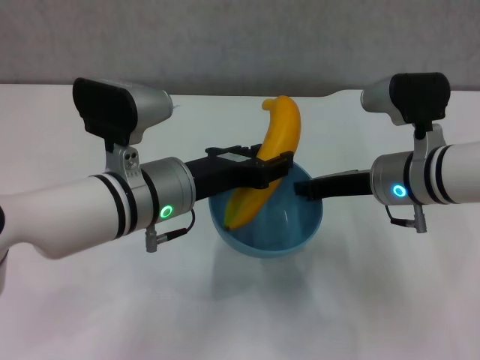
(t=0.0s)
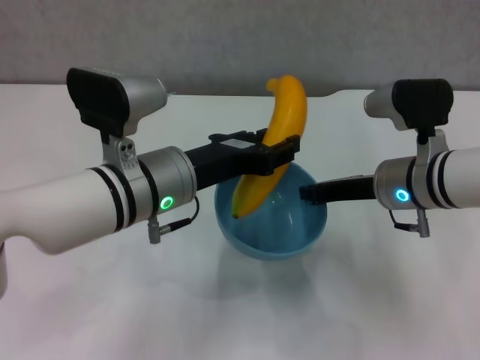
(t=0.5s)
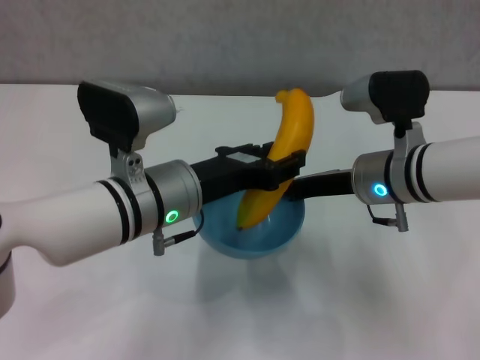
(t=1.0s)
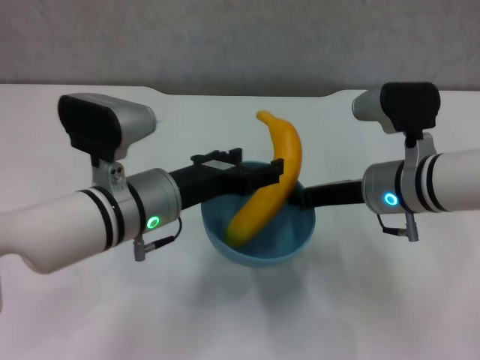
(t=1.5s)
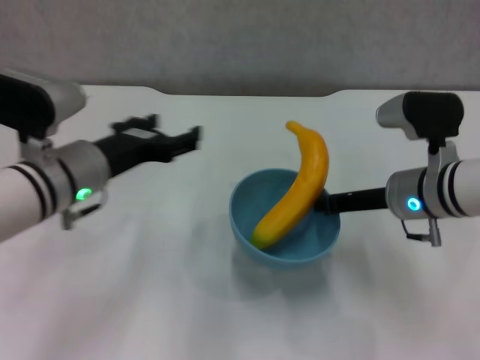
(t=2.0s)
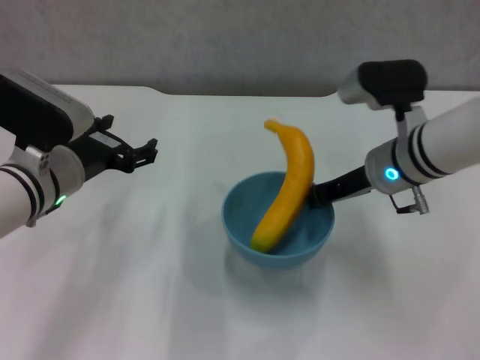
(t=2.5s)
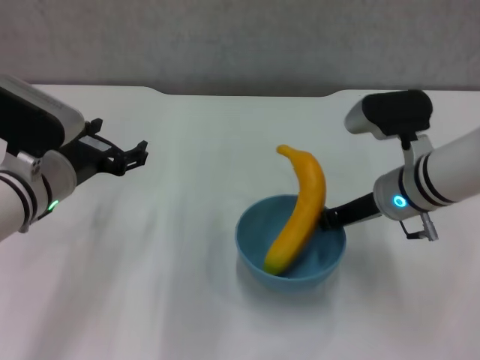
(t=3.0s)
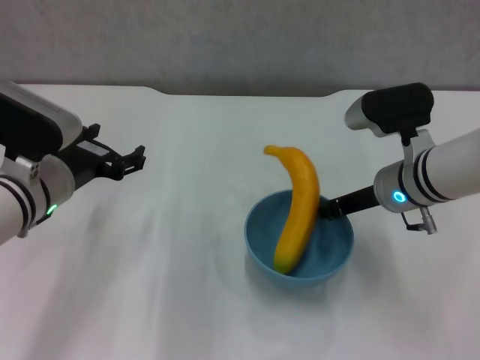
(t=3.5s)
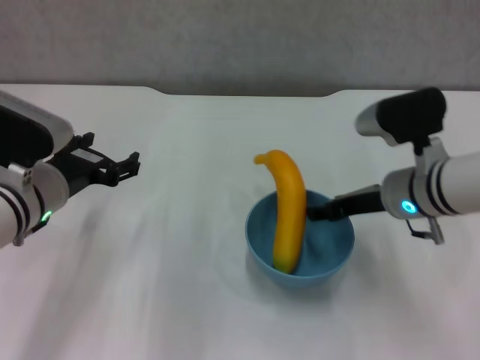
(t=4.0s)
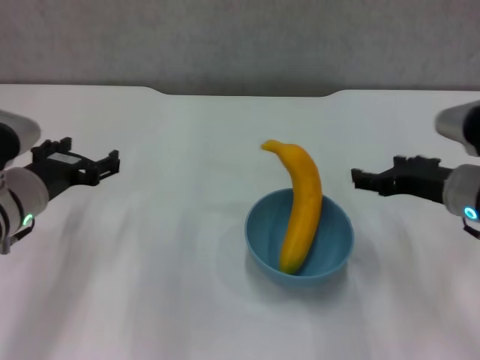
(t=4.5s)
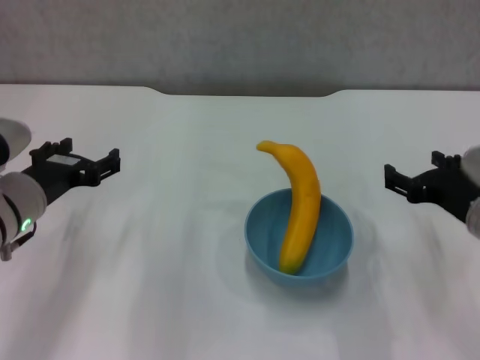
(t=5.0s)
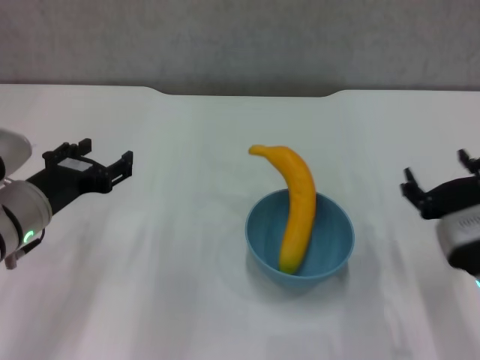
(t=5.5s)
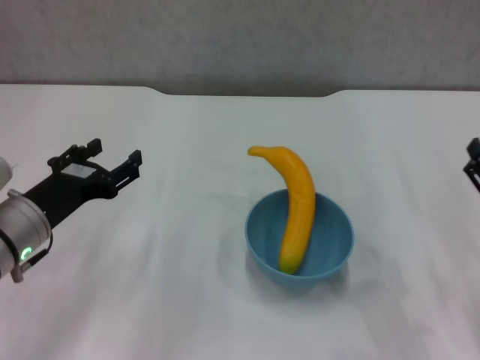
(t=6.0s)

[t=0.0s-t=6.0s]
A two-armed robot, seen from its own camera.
Step, t=2.0s to t=4.0s: Place the bowl on the table with right gripper.
t=0.0s to t=2.0s: The left gripper shifts roughly 10 cm to the left, and opens.
t=2.0s to t=4.0s: The right gripper opens.
t=4.0s to t=6.0s: The right gripper goes some 20 cm backward and to the right, and opens.

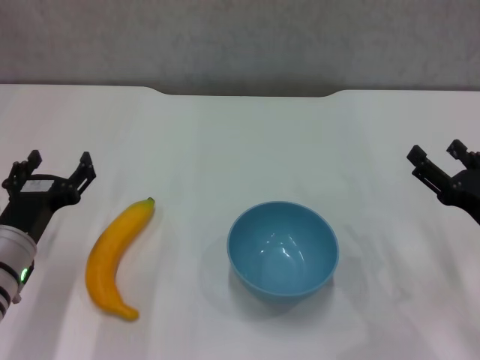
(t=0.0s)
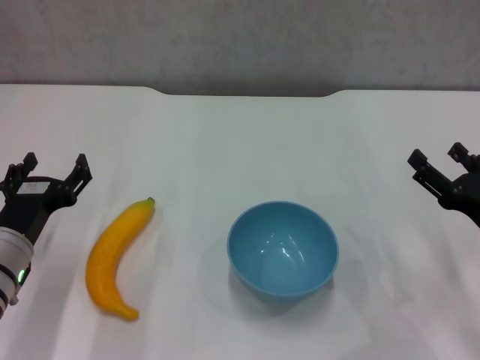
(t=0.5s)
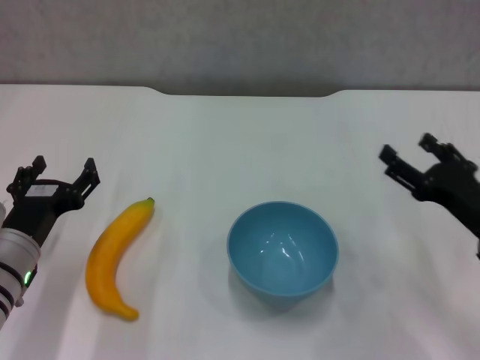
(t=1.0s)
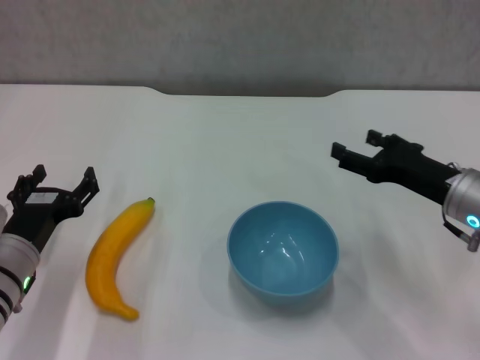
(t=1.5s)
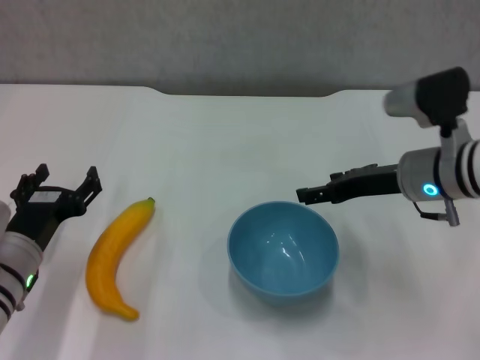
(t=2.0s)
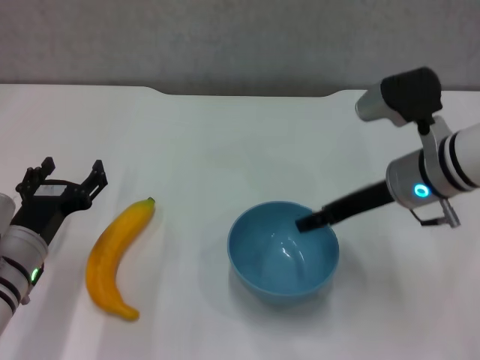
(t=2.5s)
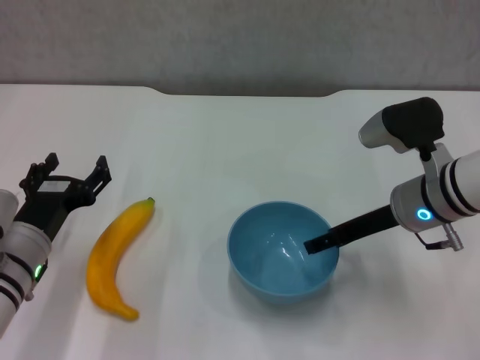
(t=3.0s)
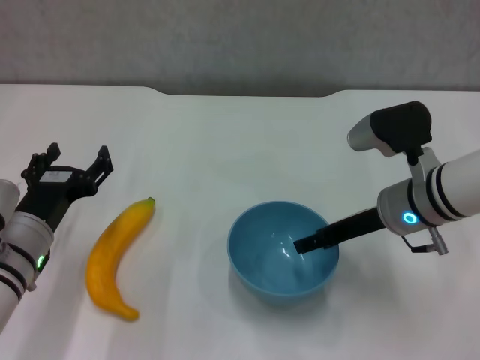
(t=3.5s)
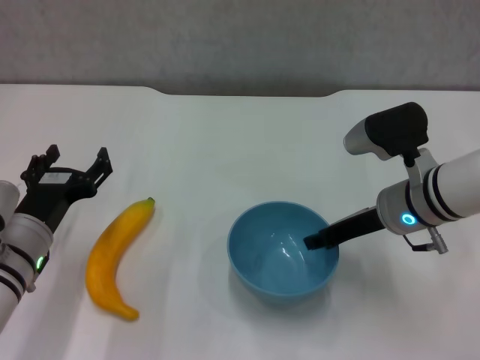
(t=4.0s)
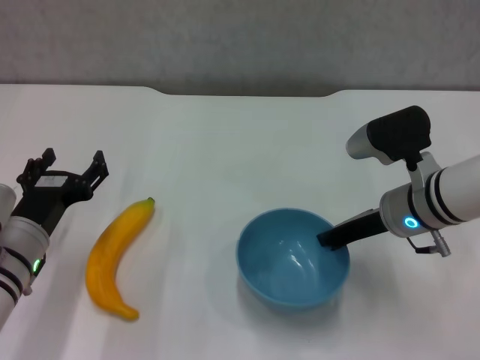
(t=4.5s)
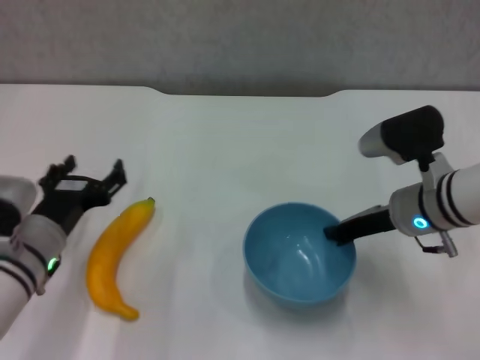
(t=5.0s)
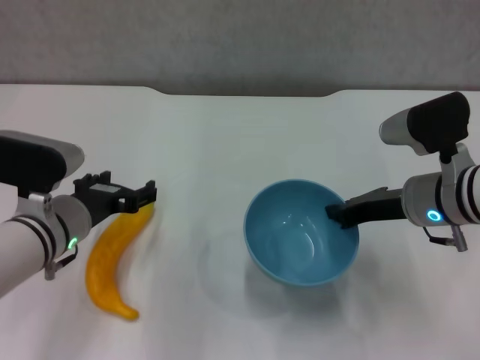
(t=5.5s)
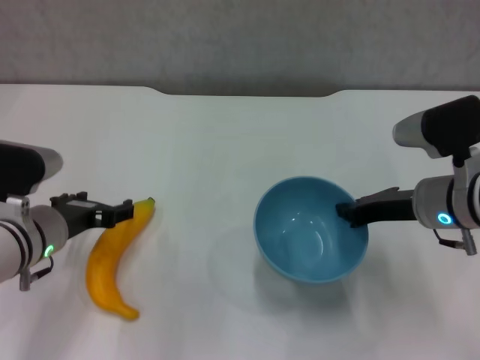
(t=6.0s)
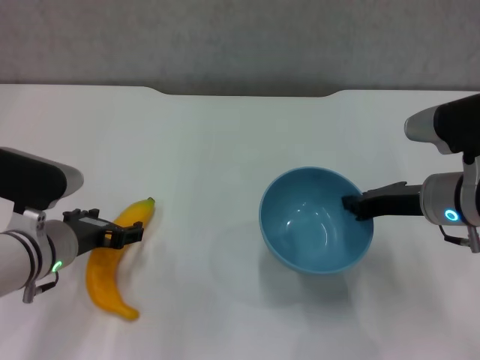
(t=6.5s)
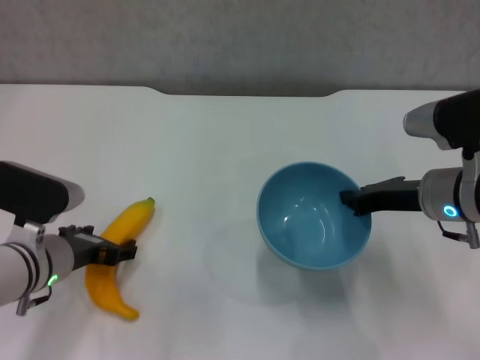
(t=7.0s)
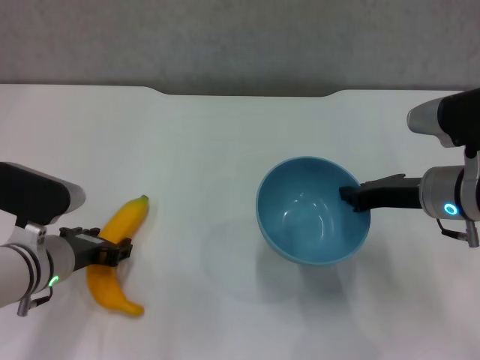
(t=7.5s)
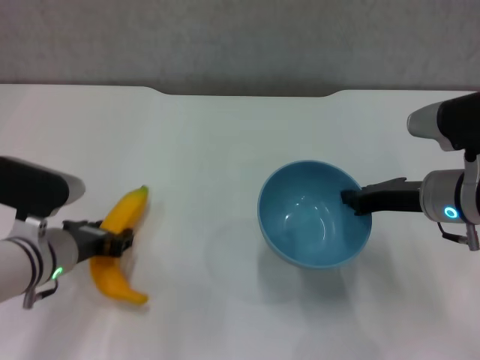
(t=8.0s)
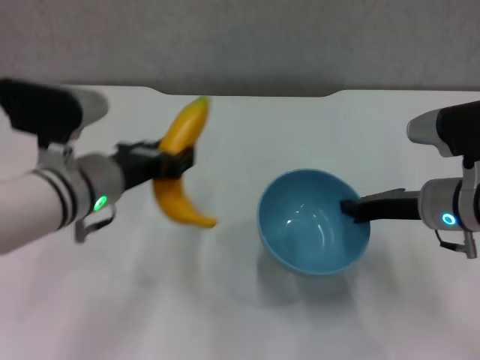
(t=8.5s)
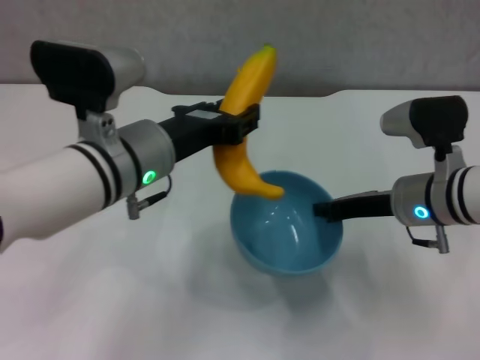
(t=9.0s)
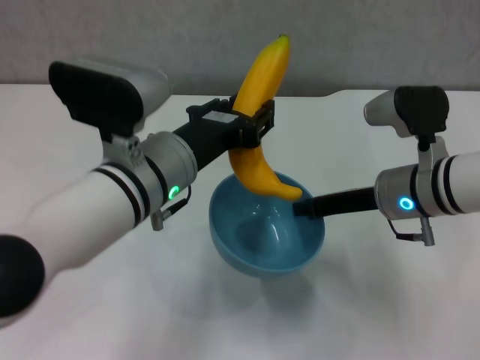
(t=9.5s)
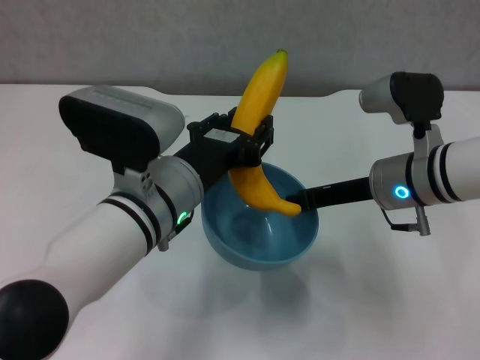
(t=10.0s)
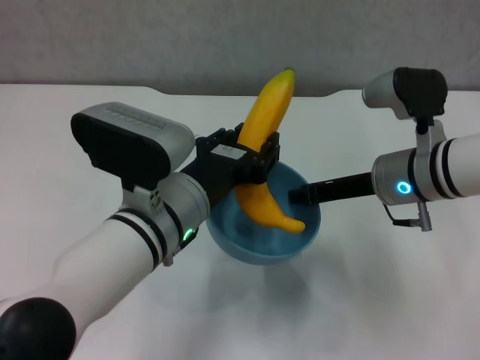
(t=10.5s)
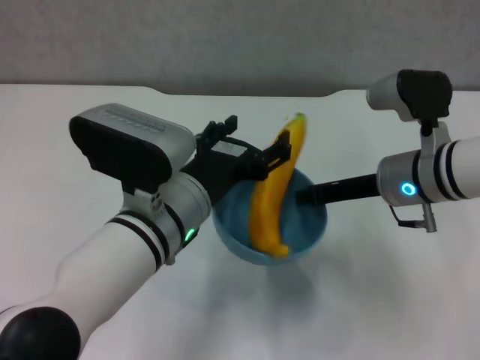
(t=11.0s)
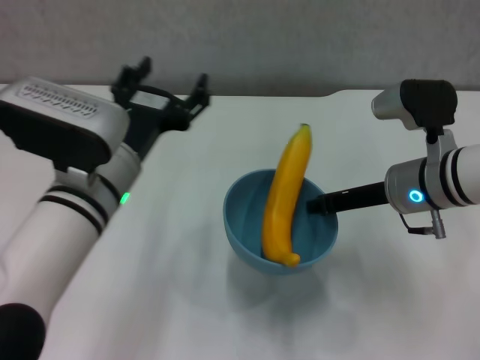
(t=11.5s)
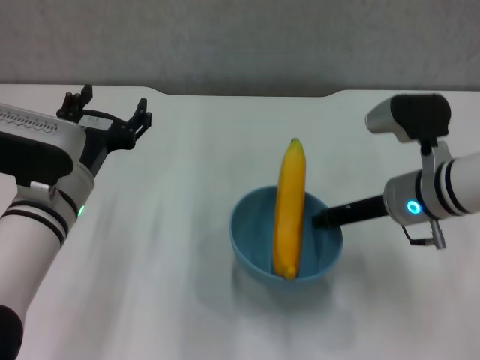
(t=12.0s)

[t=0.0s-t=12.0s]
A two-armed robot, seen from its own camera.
Step, t=0.0s to t=4.5s: Grasp the blue bowl with right gripper.
Step, t=5.5s to t=7.5s: Grasp the banana with left gripper.
Step, t=8.0s to t=10.5s: Place the banana in the blue bowl with left gripper.
t=0.0s to t=2.0s: The right gripper moves forward, to the left and upward, approximately 15 cm.
t=2.0s to t=4.0s: There are only small adjustments of the grippers.
t=4.0s to t=6.0s: The right gripper closes up.
t=6.0s to t=8.0s: The left gripper closes up.
t=8.0s to t=10.0s: The right gripper ends up approximately 5 cm from where it was. Meanwhile the left gripper heads to the right and upward, covering approximately 15 cm.
t=10.0s to t=12.0s: The left gripper travels to the left by approximately 10 cm, and opens.

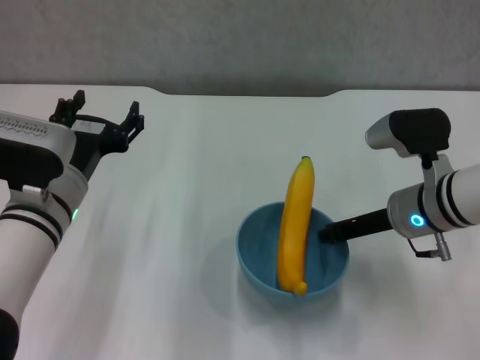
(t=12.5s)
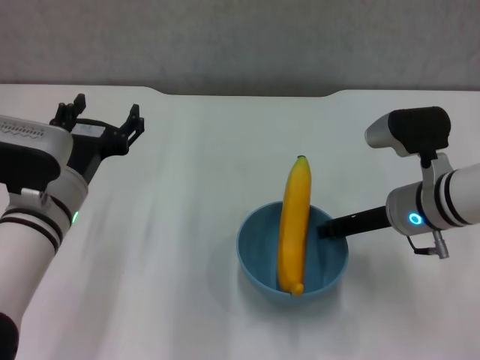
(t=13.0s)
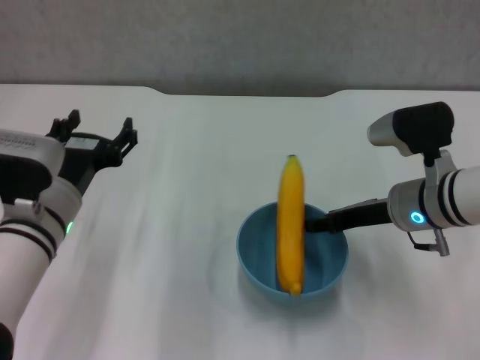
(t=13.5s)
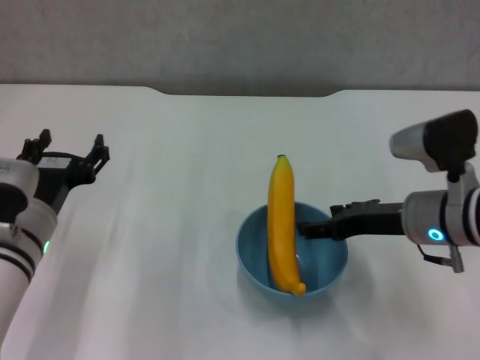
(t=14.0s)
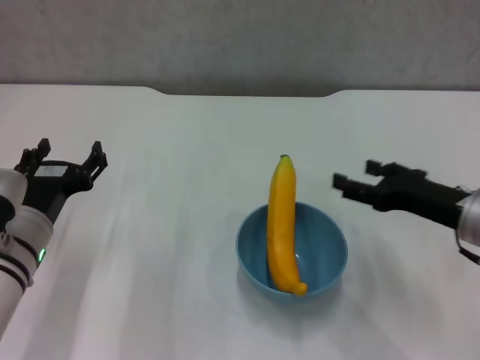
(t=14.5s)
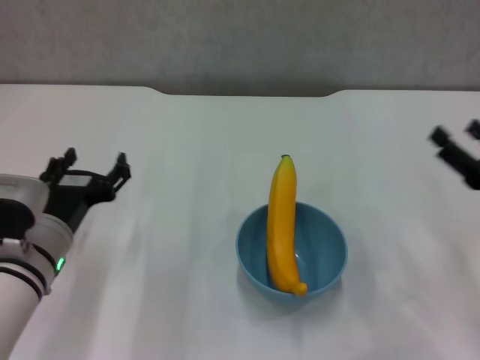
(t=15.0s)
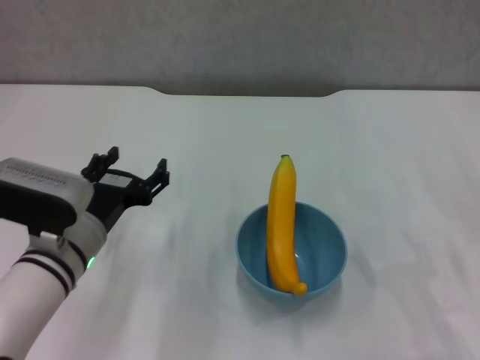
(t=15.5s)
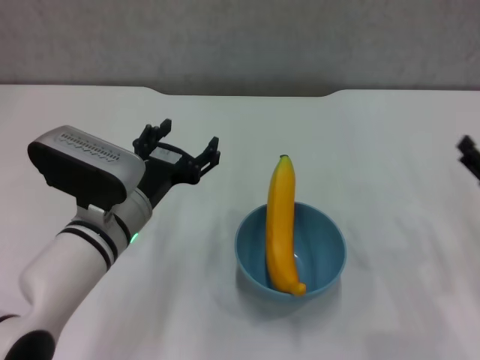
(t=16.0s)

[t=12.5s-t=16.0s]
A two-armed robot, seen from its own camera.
t=12.5s to t=14.5s: The left gripper shifts by about 5 cm; the right gripper travels to the right and backward by approximately 10 cm, and opens.
t=14.5s to t=16.0s: Both grippers move to the right, approximately 10 cm.
